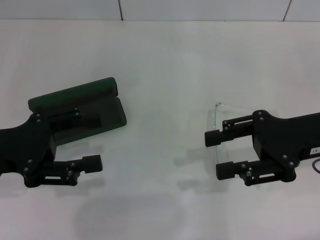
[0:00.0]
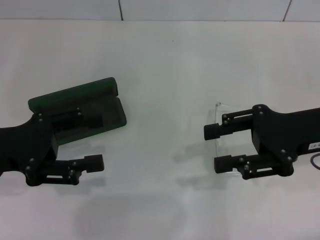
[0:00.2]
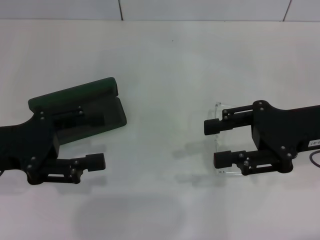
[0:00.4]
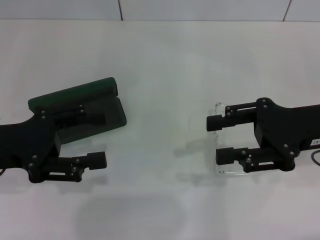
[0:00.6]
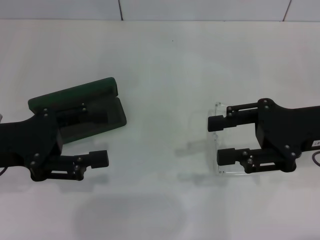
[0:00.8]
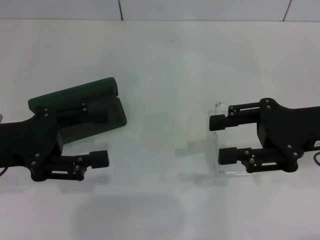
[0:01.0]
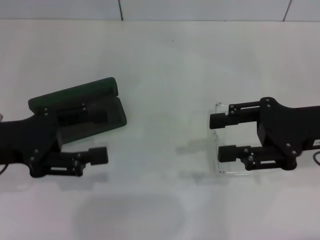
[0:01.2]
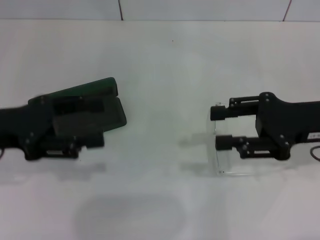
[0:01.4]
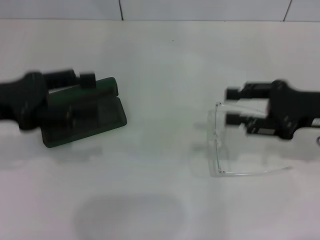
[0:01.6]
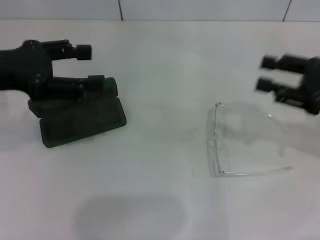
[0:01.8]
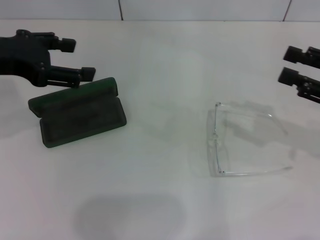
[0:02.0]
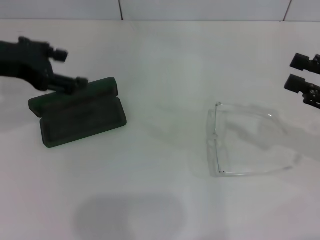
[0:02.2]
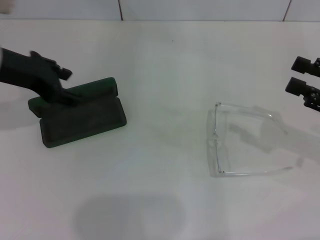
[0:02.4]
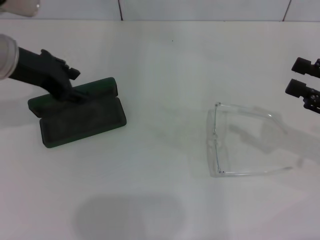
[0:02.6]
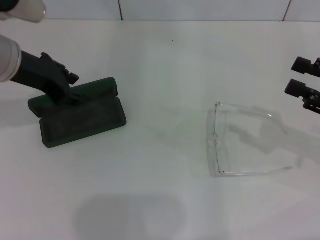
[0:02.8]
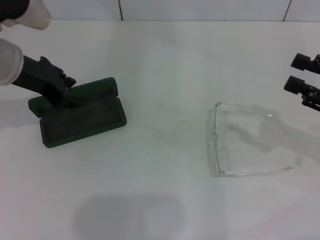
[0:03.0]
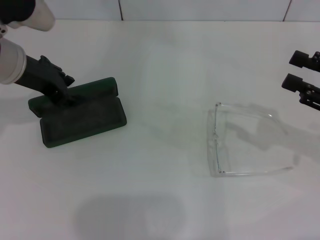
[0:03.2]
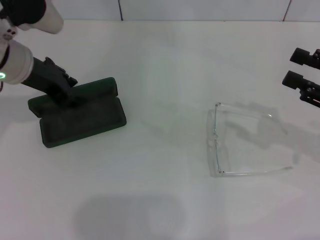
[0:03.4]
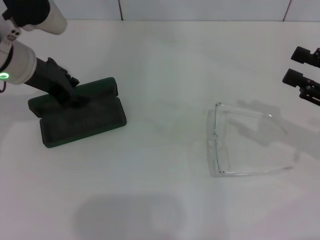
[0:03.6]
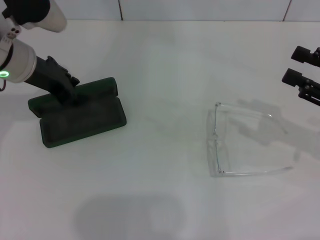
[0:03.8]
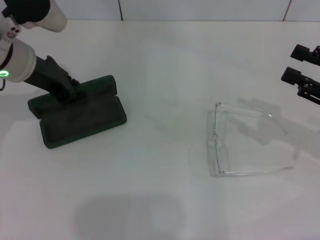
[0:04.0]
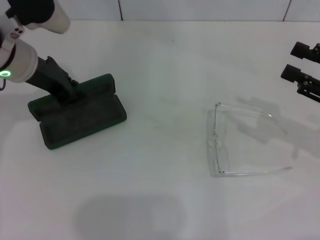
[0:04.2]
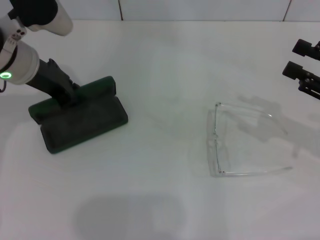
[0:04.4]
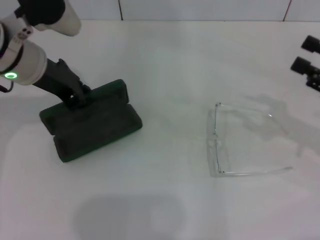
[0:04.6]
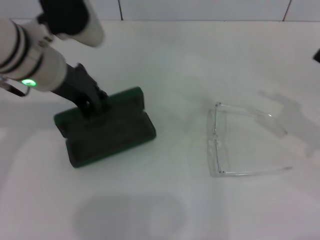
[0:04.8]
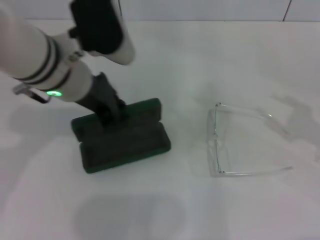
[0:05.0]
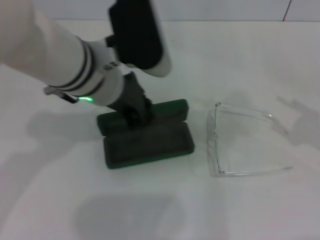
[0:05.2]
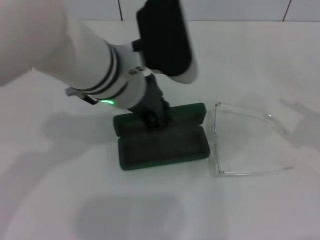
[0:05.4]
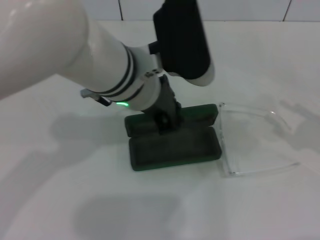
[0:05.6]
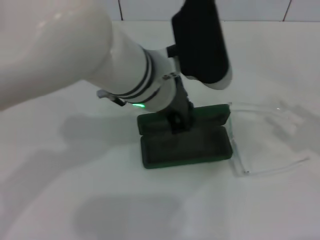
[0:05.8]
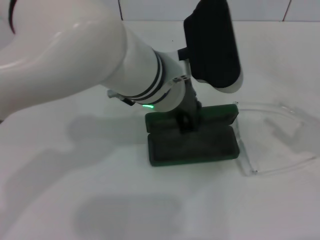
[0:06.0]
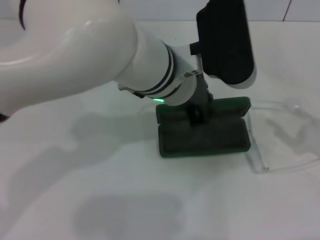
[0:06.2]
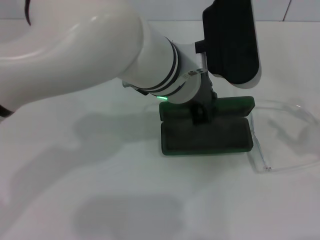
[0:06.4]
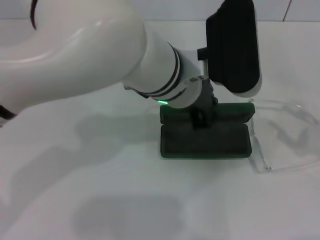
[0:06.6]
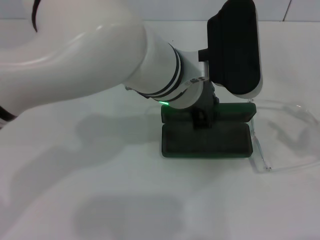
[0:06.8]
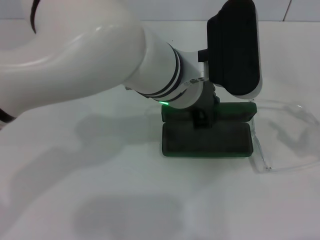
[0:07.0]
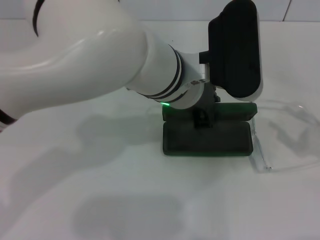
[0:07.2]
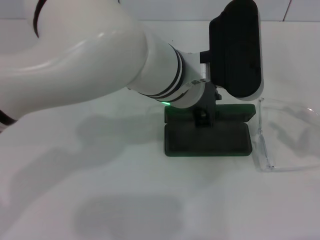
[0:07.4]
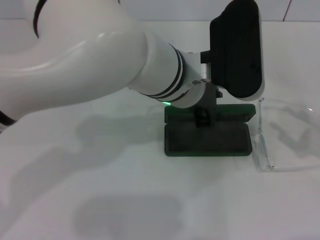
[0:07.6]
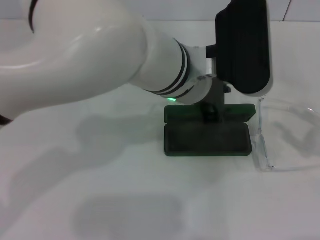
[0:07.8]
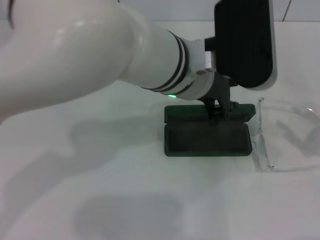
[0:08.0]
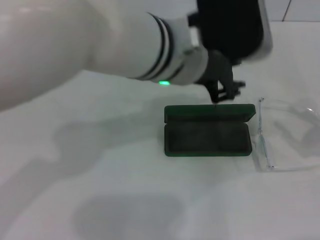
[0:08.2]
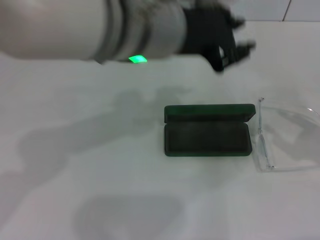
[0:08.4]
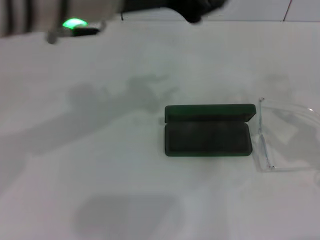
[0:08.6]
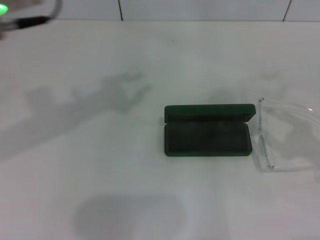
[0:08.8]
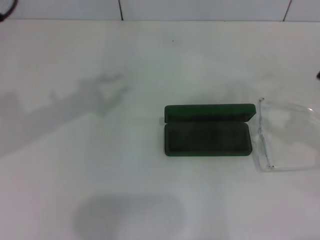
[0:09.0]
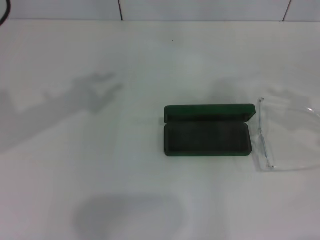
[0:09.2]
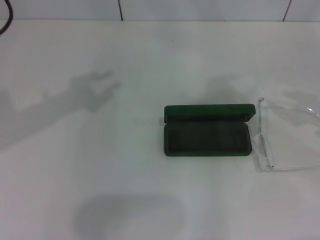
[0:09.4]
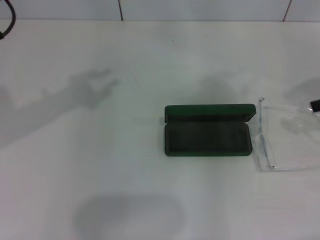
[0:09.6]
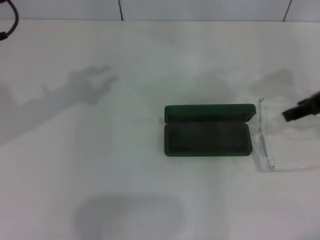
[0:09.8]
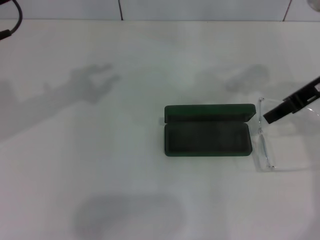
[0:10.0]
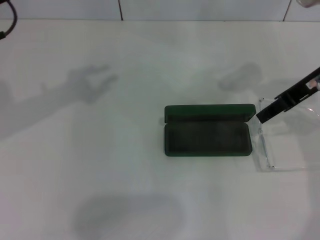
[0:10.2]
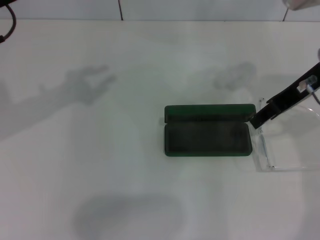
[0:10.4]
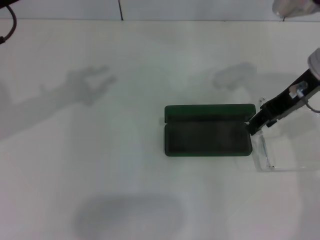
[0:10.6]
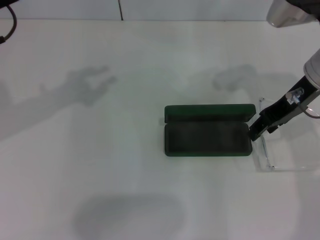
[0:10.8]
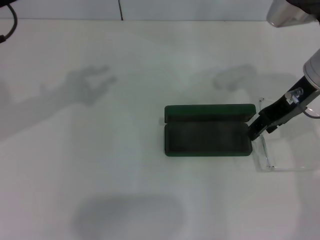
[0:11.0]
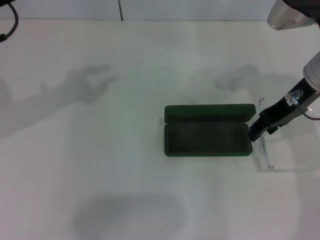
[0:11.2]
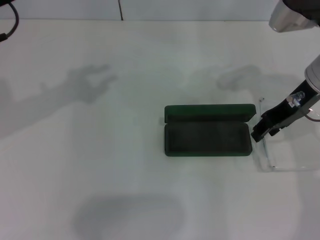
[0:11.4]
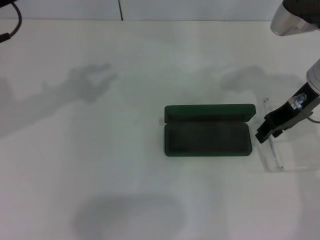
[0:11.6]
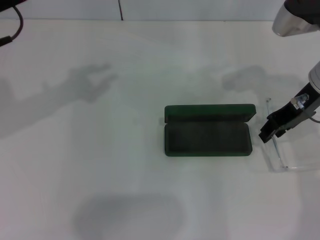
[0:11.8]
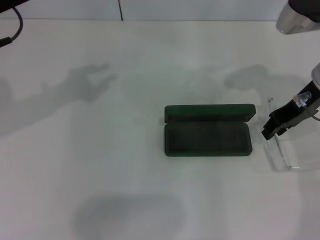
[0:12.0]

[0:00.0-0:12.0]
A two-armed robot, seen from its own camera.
Step, 0:00.0 to 0:04.2: Grab the glasses case with your left hand.
Step, 0:04.4 to 0:07.2: Place the glasses case in the center of the table with your left hand.
0:00.0 to 0:01.6: The left gripper ends up approximately 5 cm from where it was.
0:01.6 to 0:03.0: The left gripper heads forward and to the right, covering approximately 10 cm, and closes; the right gripper travels to the right by approximately 5 cm.
0:03.0 to 0:04.4: The left gripper closes.
0:04.4 to 0:06.0: The left gripper travels to the right by roughly 20 cm. Meanwhile the right gripper goes about 5 cm backward.
0:06.0 to 0:07.6: The grippers stay close to where they were, moving slightly.
0:07.6 to 0:09.0: The left gripper moves to the left and upward, roughly 25 cm.
0:09.0 to 0:10.4: The left gripper shifts about 5 cm downward. Meanwhile the right gripper moves to the left, forward and upward, approximately 20 cm.
0:10.4 to 0:12.0: The grippers stay close to where they were, moving slightly.

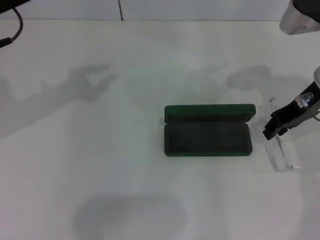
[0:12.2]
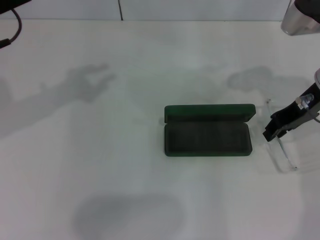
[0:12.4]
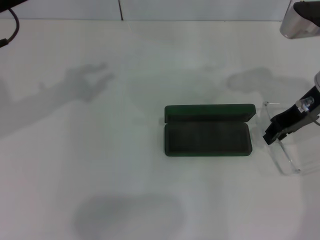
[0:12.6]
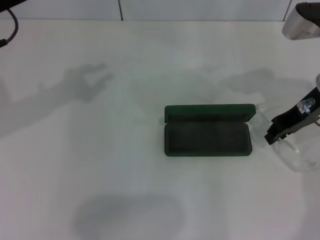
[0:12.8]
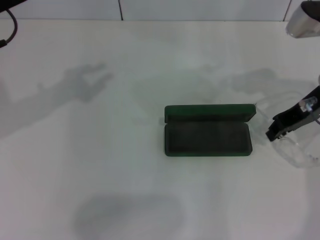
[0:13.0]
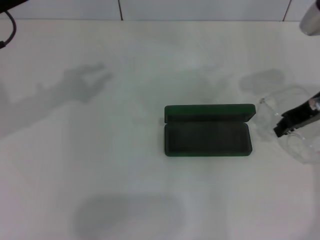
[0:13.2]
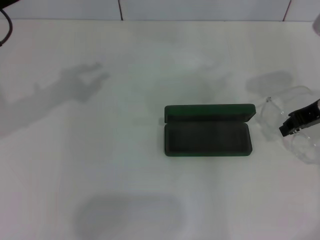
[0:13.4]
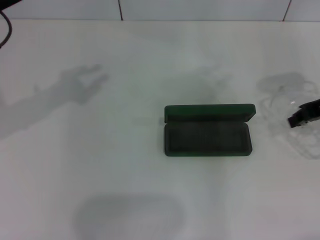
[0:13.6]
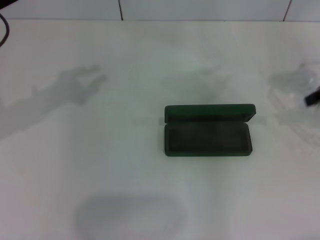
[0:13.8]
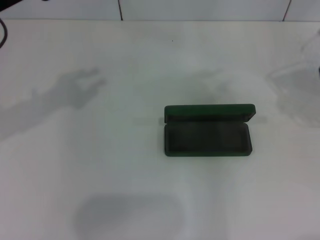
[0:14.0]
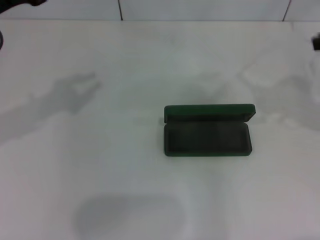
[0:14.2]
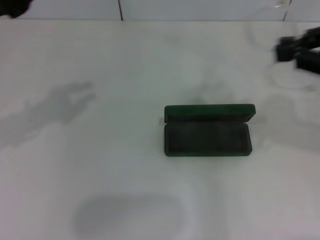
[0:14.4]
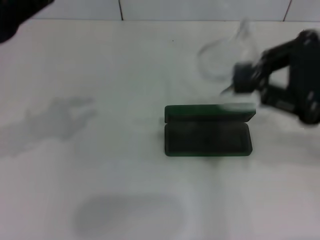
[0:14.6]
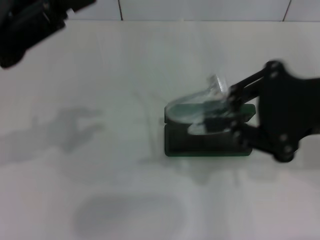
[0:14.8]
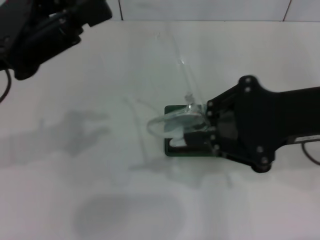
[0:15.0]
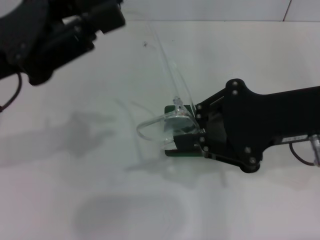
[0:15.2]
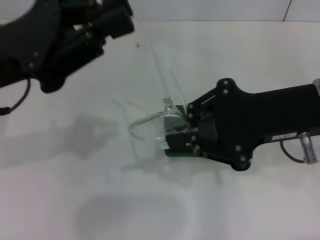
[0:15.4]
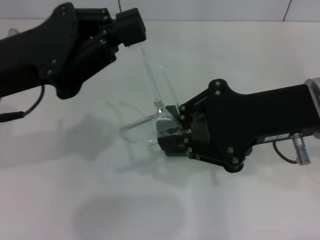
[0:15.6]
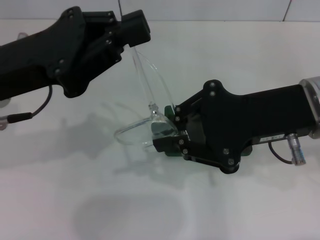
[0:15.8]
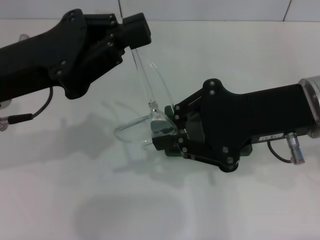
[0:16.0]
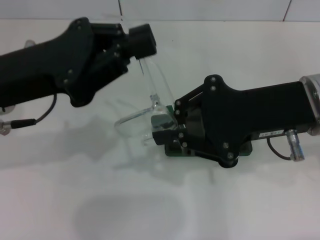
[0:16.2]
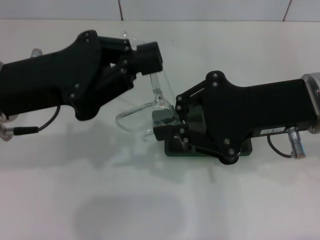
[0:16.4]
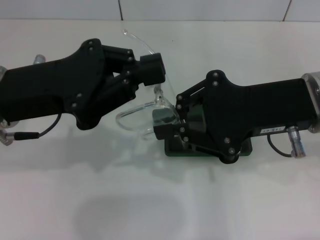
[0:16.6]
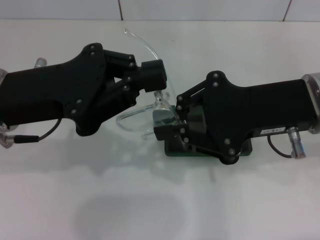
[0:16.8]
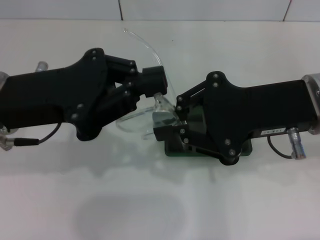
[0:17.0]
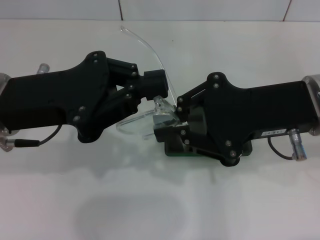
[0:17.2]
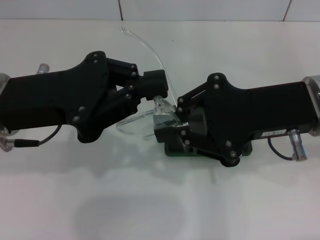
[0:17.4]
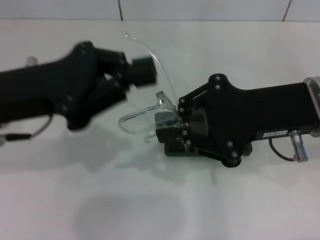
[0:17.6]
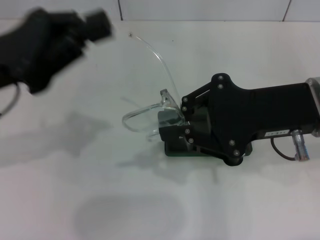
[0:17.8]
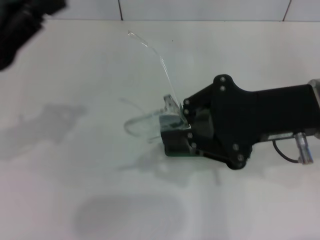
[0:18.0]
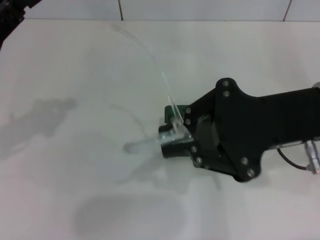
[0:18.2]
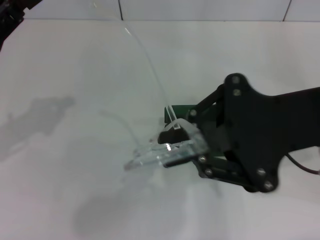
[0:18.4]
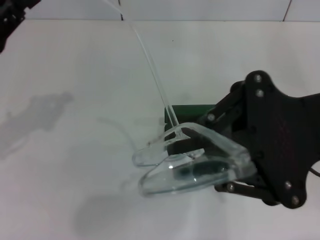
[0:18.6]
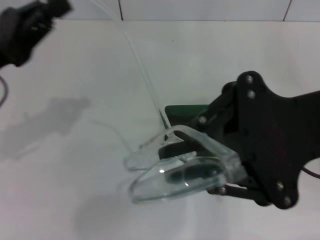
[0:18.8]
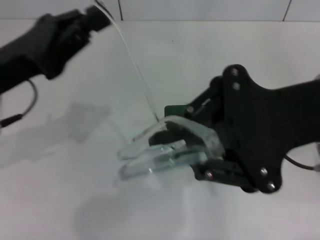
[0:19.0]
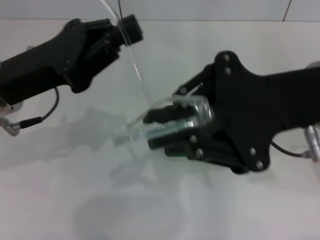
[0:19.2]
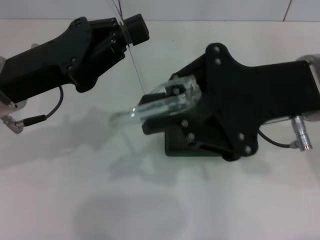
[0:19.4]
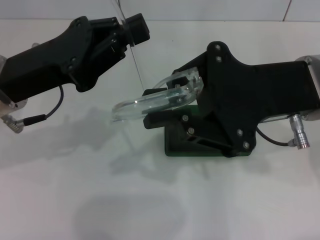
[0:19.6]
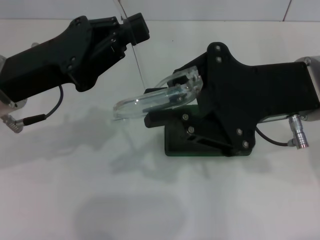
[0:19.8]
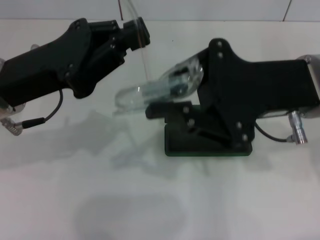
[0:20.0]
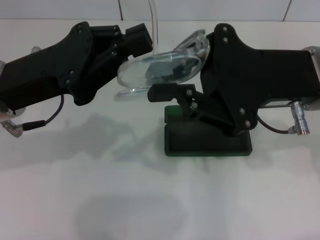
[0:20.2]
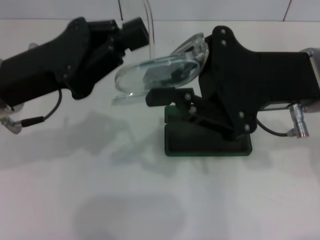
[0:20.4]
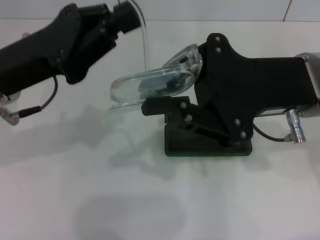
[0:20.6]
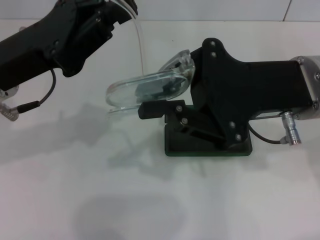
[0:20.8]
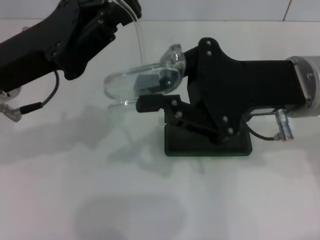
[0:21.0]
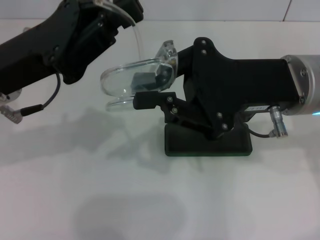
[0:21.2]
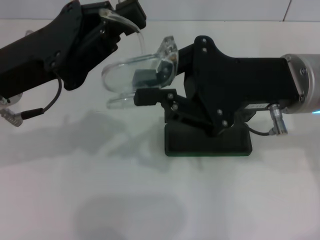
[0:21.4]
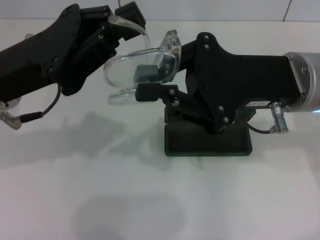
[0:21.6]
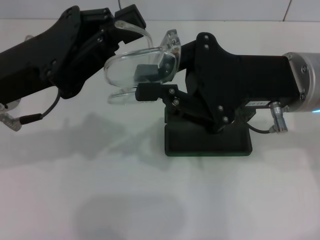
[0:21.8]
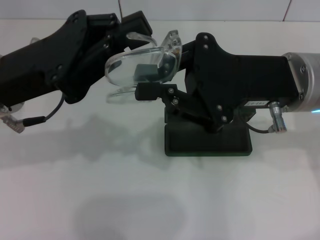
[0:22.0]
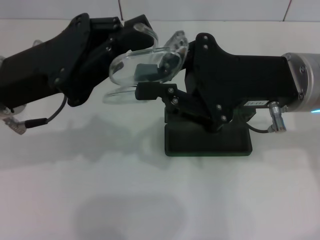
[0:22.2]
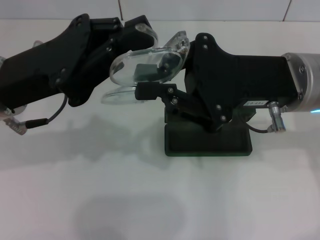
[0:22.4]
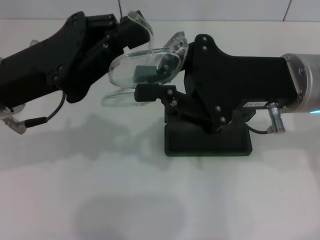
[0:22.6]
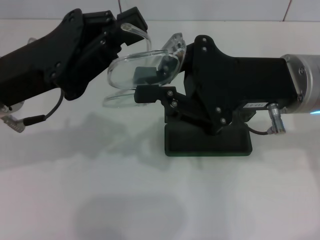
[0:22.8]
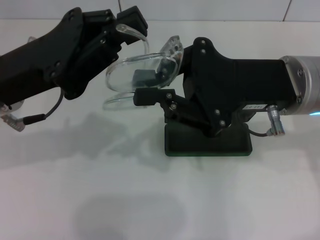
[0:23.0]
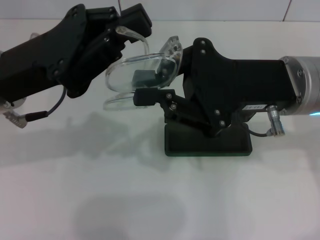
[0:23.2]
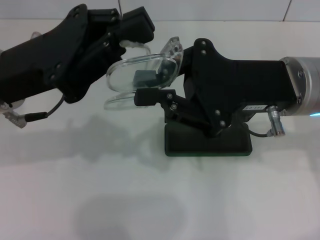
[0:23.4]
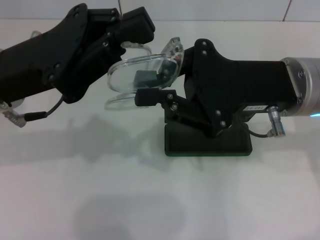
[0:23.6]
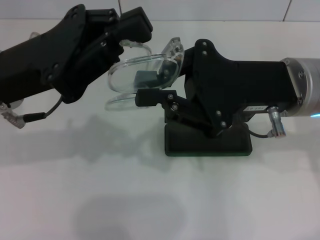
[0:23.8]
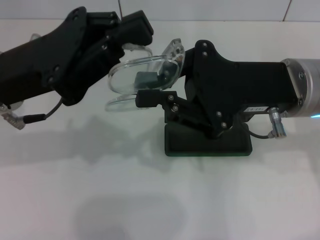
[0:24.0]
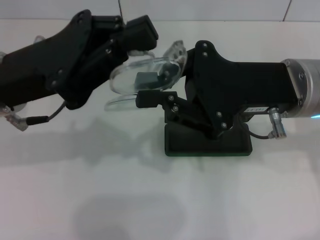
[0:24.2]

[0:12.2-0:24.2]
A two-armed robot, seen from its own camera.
0:12.2 to 0:13.8: The right gripper heads to the right, covering about 10 cm, and closes its fingers.
0:13.8 to 0:15.2: The right gripper travels to the left and backward by roughly 15 cm.
0:16.6 to 0:18.2: The left gripper moves to the left, some 10 cm.
0:18.2 to 0:19.8: The left gripper is displaced to the right by some 10 cm.
0:21.2 to 0:22.6: Neither gripper changes place.
0:22.6 to 0:24.2: The grippers stay close to where they were, moving slightly.
